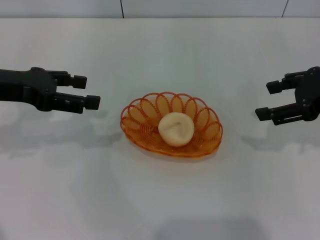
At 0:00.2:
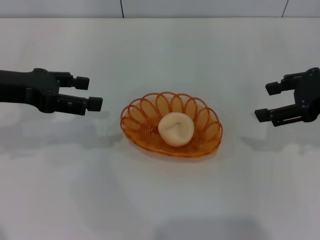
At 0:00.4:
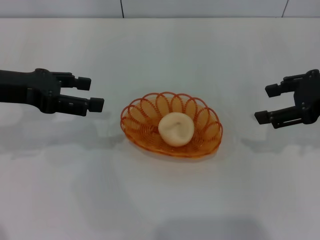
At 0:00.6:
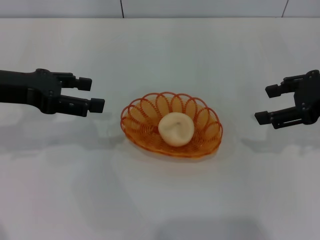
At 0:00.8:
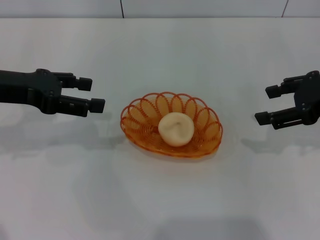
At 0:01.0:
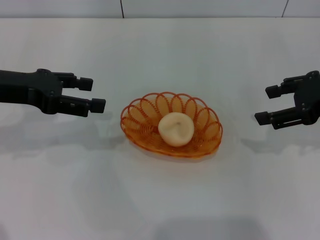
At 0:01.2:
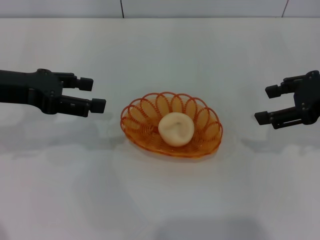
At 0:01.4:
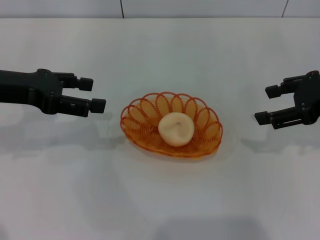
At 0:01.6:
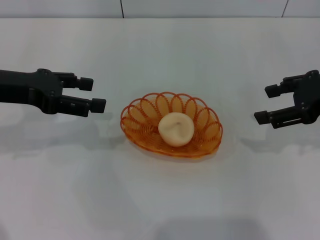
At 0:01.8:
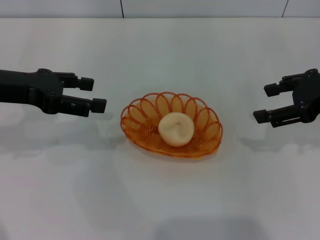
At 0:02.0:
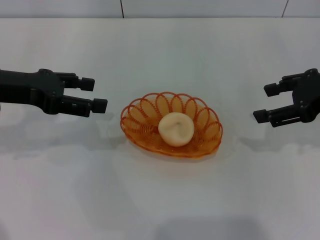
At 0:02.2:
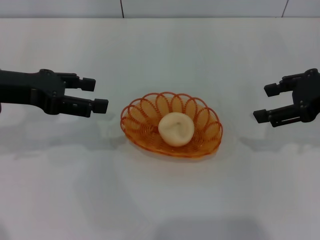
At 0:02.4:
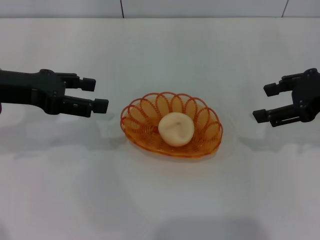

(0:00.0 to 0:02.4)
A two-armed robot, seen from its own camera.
0:00.0 - 0:02.4: The two grippers keep their place.
